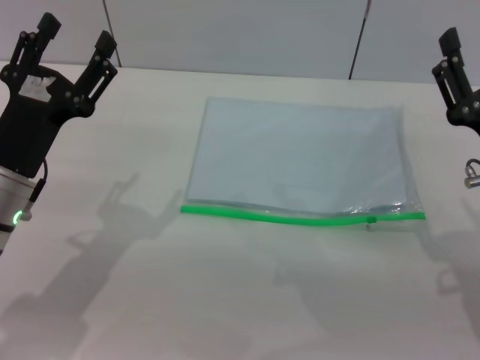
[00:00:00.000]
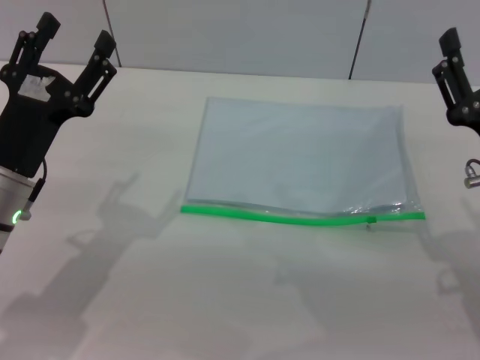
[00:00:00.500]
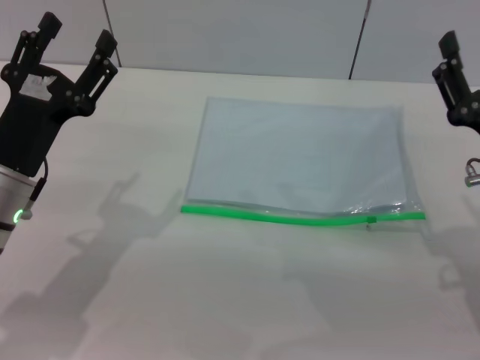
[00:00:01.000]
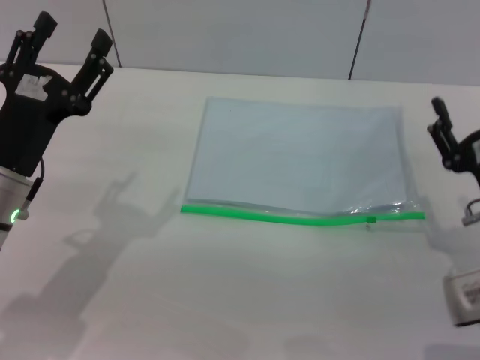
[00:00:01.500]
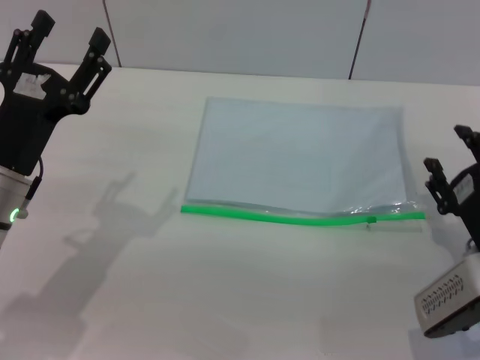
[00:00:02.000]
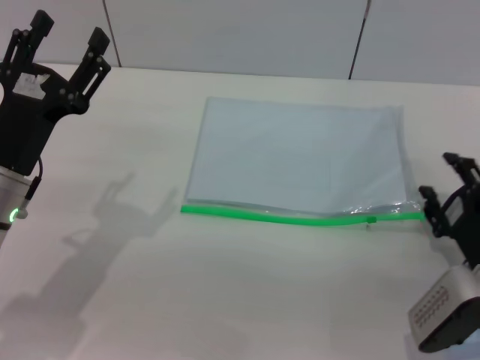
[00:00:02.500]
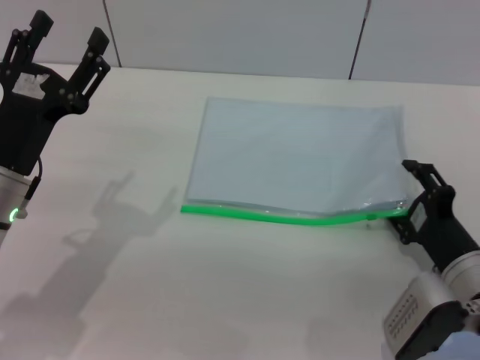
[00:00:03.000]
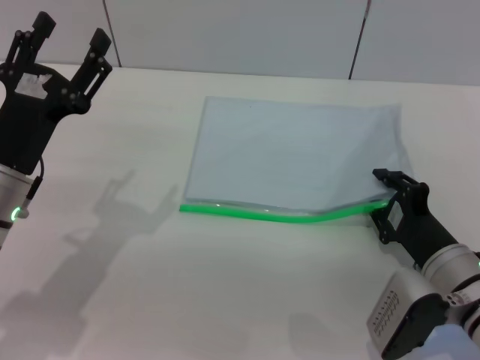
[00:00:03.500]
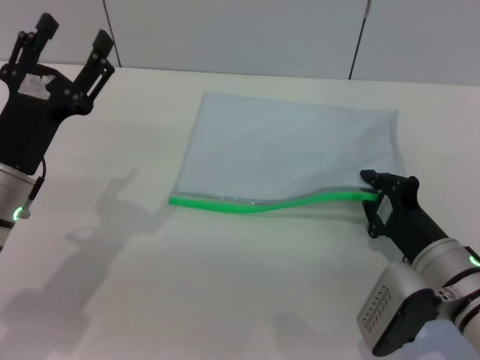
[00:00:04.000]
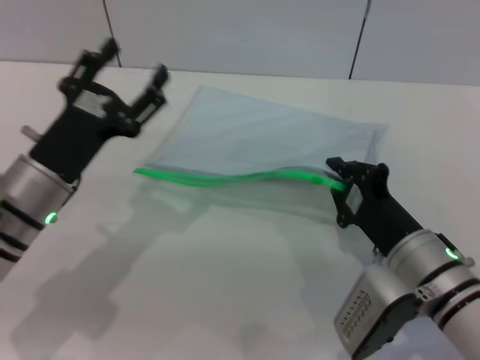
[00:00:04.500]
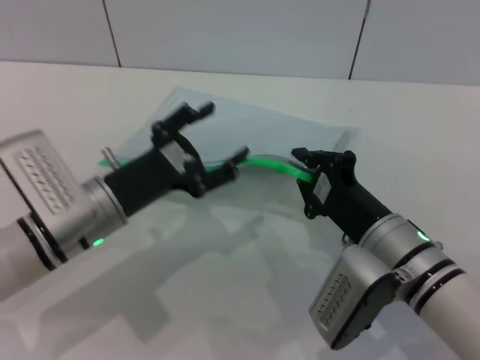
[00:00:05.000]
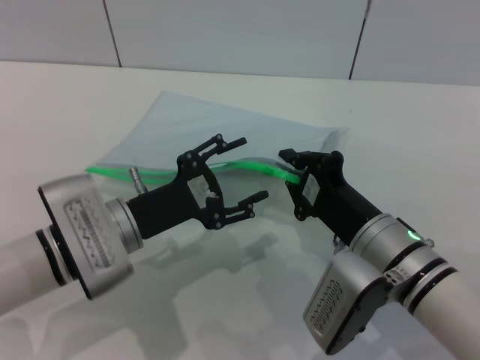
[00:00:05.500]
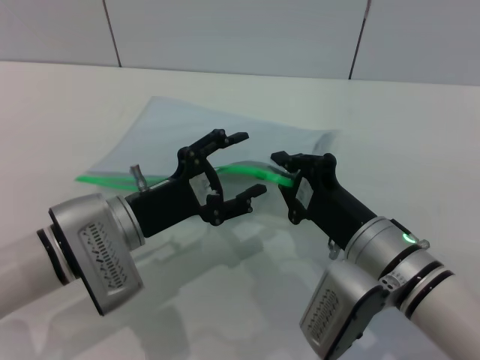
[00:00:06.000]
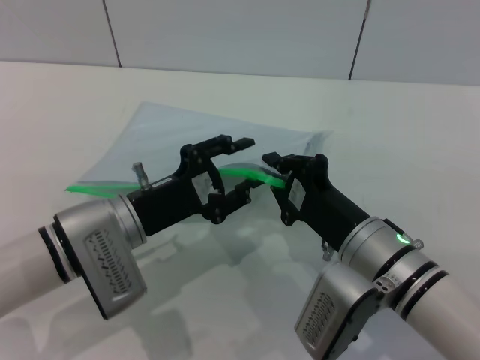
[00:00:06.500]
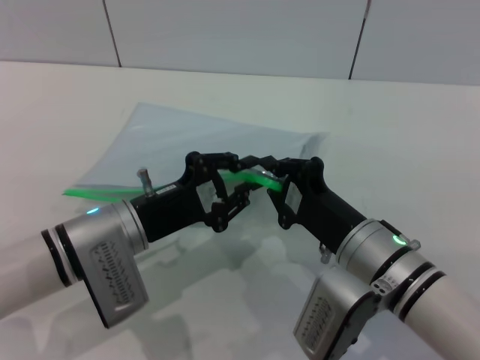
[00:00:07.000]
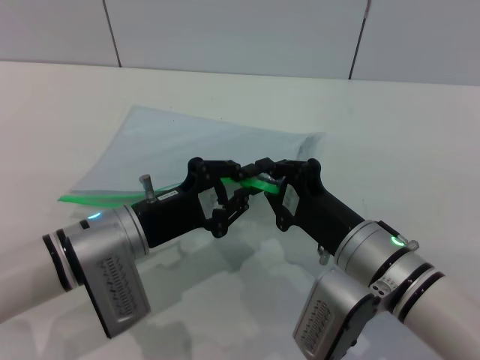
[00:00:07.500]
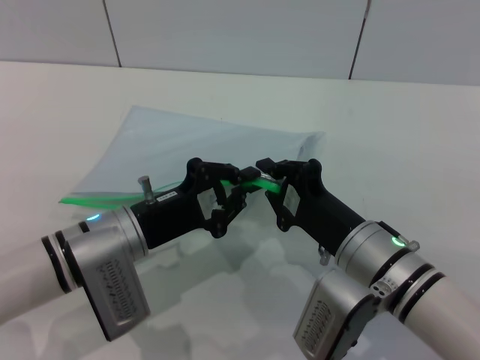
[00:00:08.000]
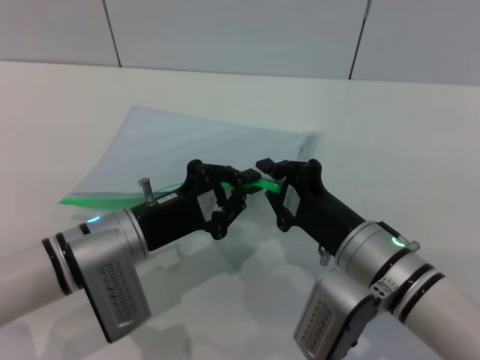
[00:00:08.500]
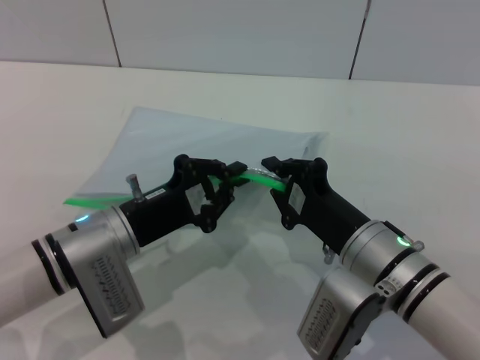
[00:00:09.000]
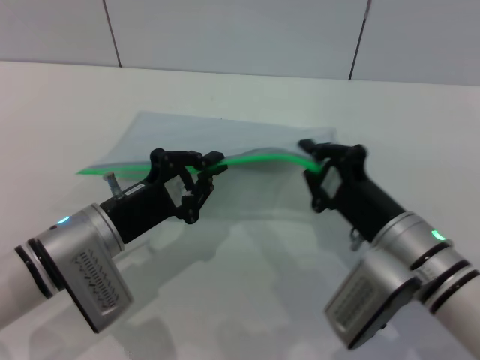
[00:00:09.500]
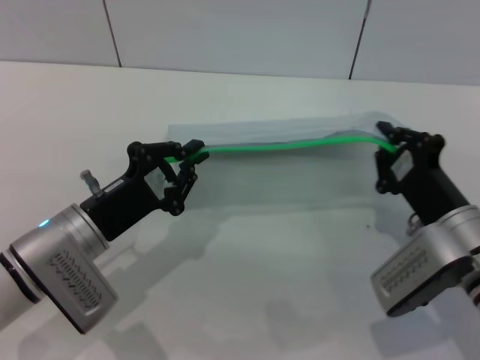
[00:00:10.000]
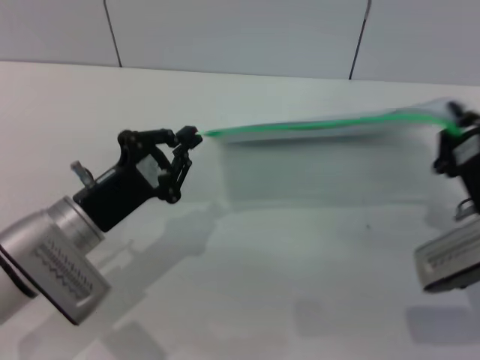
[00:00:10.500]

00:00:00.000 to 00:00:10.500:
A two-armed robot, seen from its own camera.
Step, 00:00:00.000 to 00:00:04.500: Pick up the transparent plastic bag with the right gripper.
00:00:00.000 to 00:00:02.000: The right gripper shifts some 5 cm downward.
00:00:02.000 to 00:00:04.000: The right gripper is displaced to the left by some 5 cm, and closes up.
00:00:04.000 to 00:00:06.500: The right gripper shifts some 5 cm to the left. The left gripper travels to the right by about 5 cm.
00:00:06.500 to 00:00:08.500: The left gripper closes its fingers.
00:00:08.500 to 00:00:10.500: The right gripper moves to the right, approximately 10 cm.

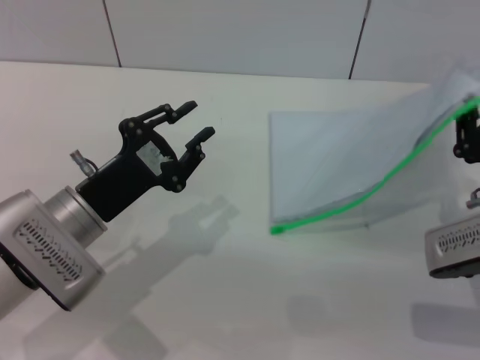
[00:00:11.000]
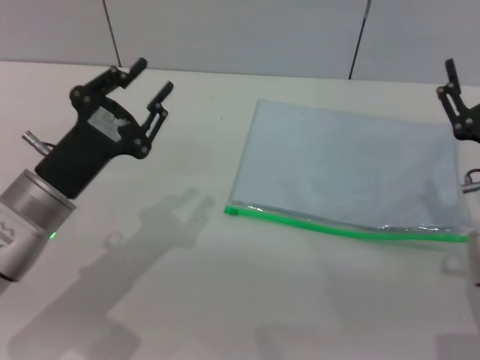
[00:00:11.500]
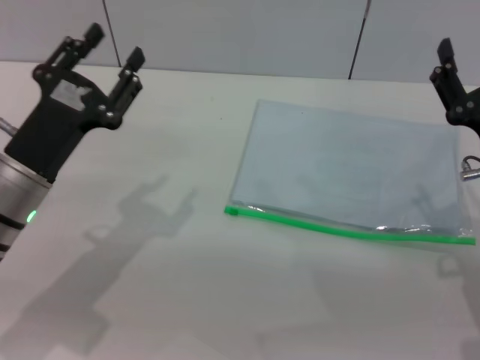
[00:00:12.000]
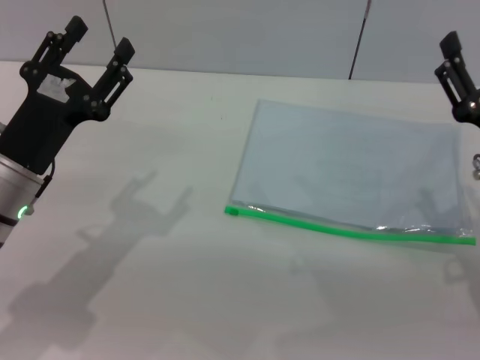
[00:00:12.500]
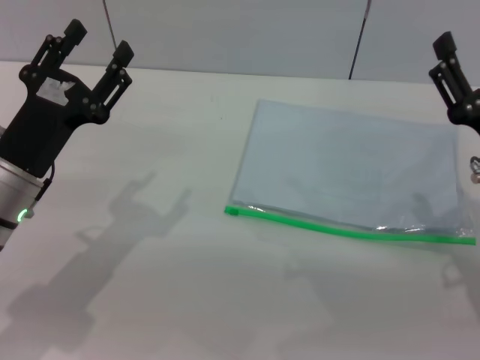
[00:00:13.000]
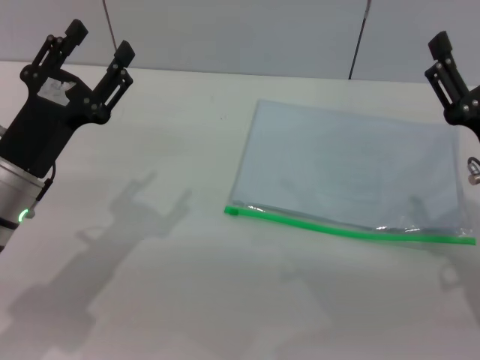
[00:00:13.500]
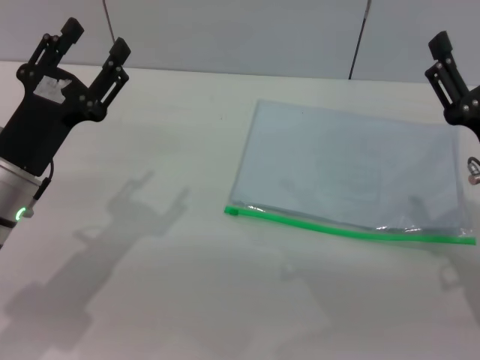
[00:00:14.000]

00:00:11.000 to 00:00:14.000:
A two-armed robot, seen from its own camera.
Step, 00:00:11.500 to 00:00:12.000: Place the transparent plastic bag.
00:00:11.000 to 00:00:12.500: The right gripper opens its fingers. Meanwhile the left gripper shifts by about 5 cm, and opens its fingers.
00:00:12.500 to 00:00:14.000: Both grippers stay about where they are.

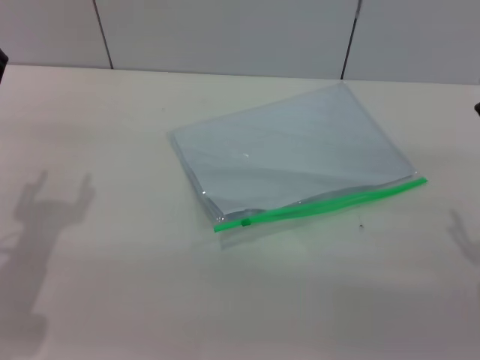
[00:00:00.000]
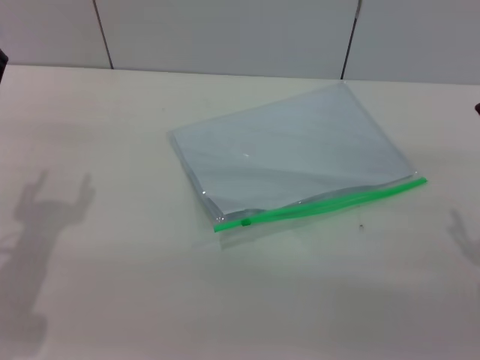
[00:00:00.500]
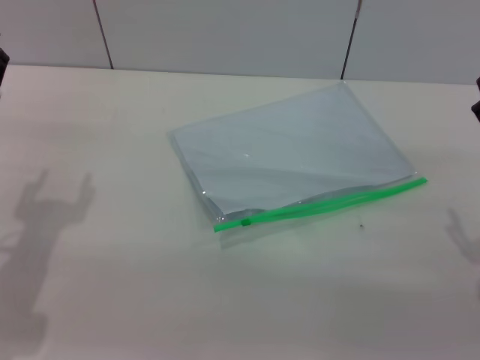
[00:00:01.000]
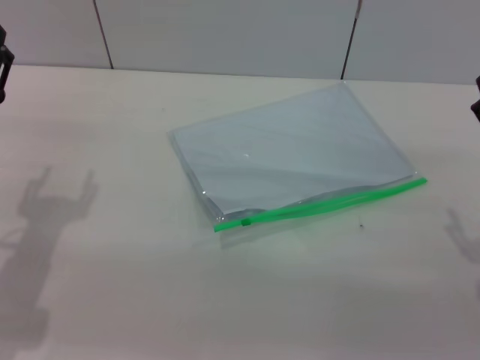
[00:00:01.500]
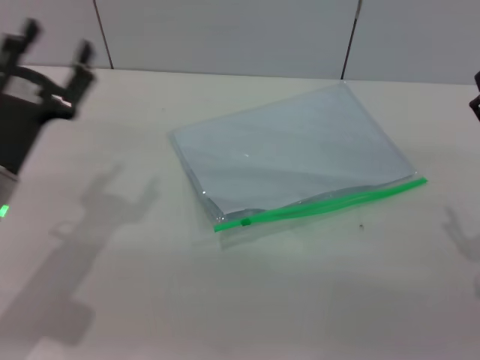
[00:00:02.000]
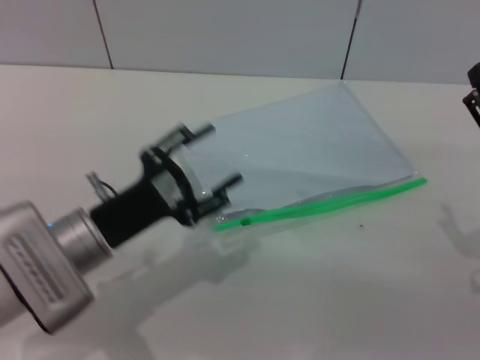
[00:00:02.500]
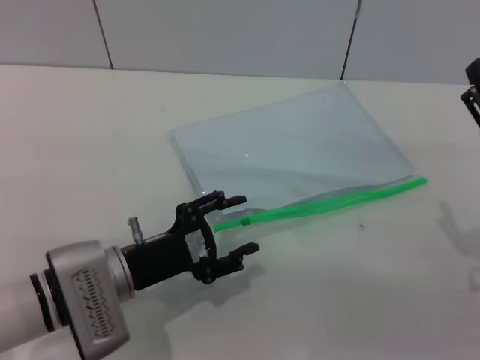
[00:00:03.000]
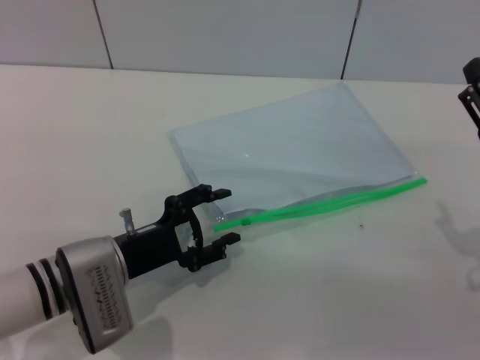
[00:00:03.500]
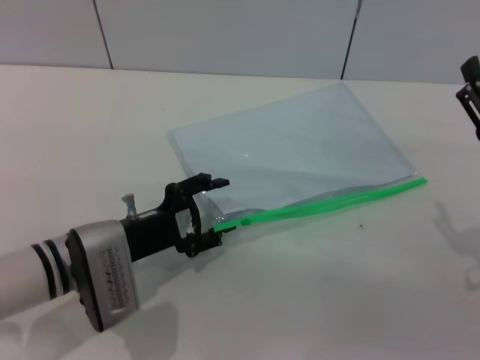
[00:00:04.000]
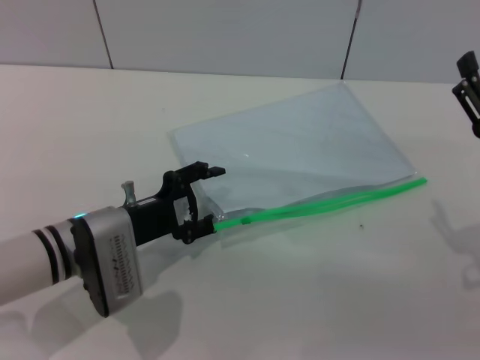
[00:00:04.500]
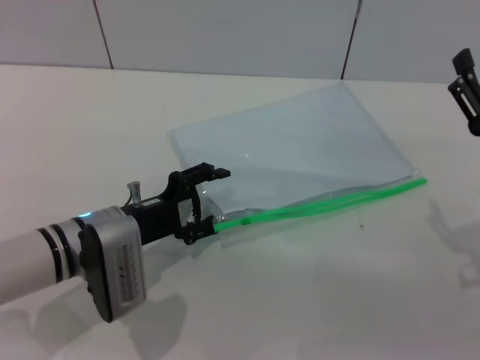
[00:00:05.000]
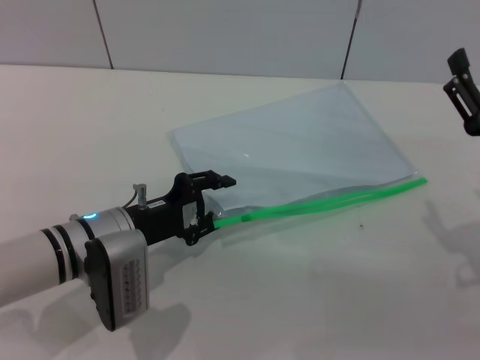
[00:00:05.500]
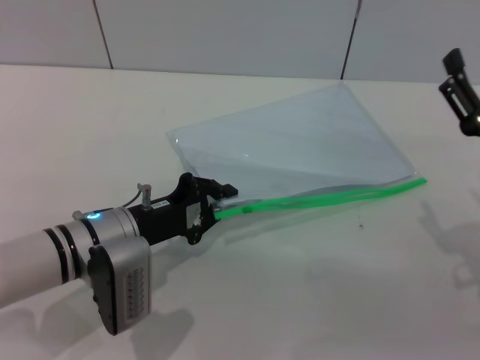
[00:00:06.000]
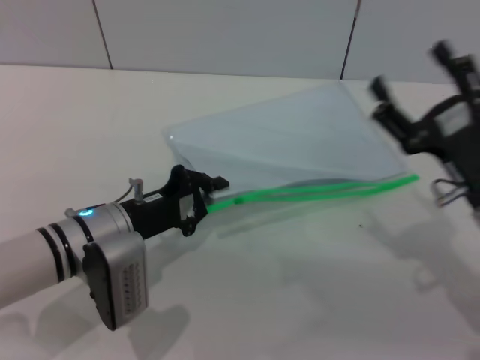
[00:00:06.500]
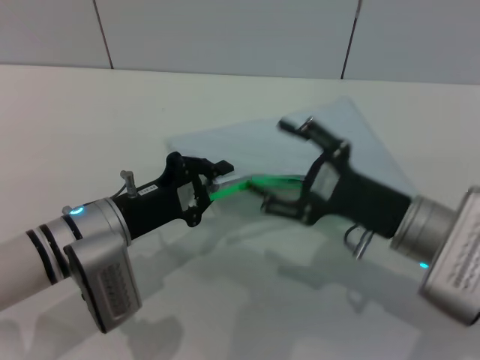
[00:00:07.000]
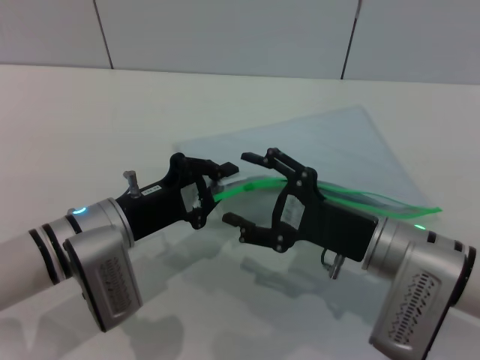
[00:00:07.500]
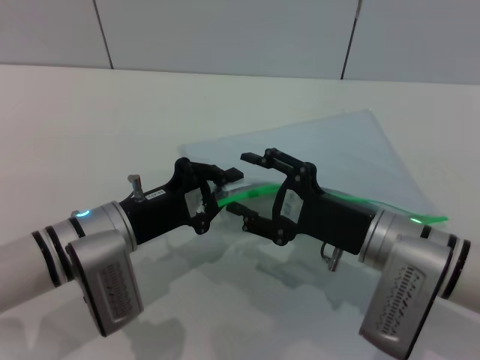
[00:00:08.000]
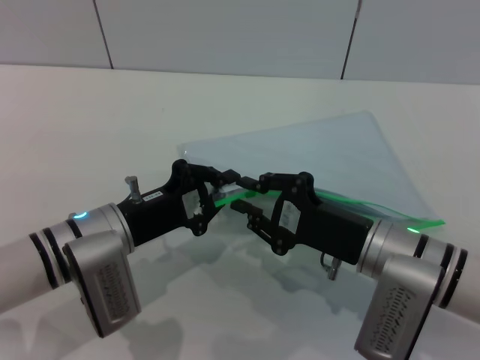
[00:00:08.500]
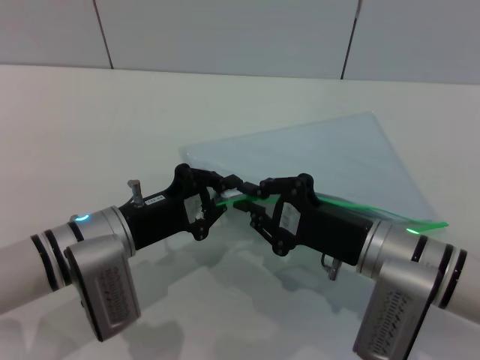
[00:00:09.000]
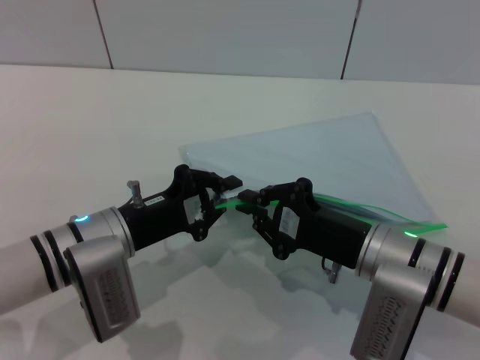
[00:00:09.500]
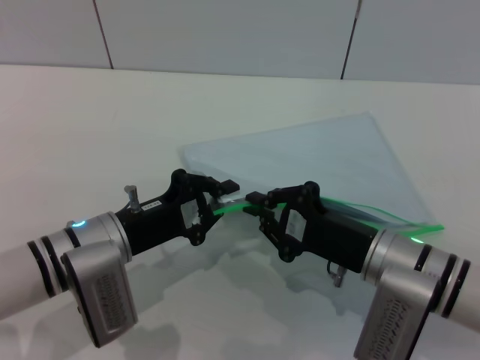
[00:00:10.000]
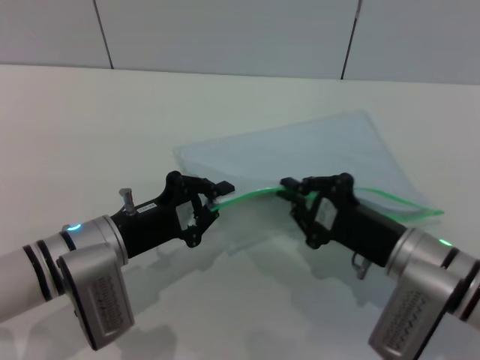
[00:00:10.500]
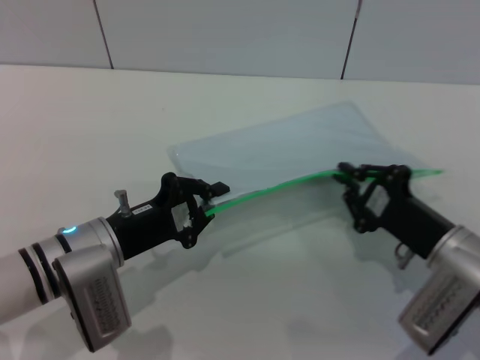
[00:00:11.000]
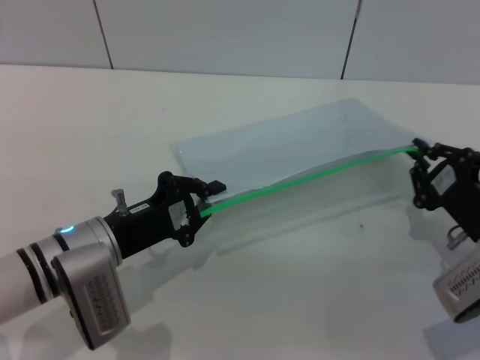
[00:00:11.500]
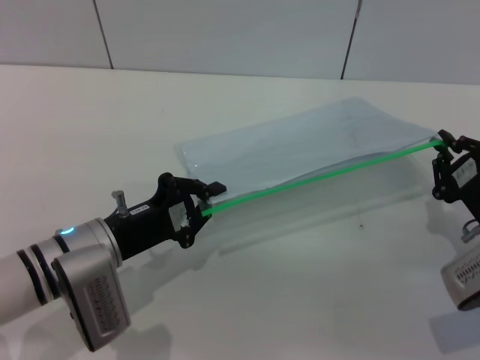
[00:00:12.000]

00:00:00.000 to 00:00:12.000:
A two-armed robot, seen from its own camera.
Step, 00:00:00.000 to 00:00:06.000: Pick up the transparent plastic bag with the left gripper.
00:00:00.000 to 00:00:02.000: The grippers stay close to where they were, moving slightly.
00:00:02.000 to 00:00:04.000: The left gripper heads to the right and downward, covering roughly 10 cm.
00:00:04.000 to 00:00:06.000: The left gripper closes its fingers.
00:00:06.000 to 00:00:08.000: The right gripper goes some 10 cm to the left.
00:00:08.000 to 00:00:10.000: The right gripper closes.
00:00:10.000 to 00:00:12.000: The right gripper travels to the right by about 10 cm.
